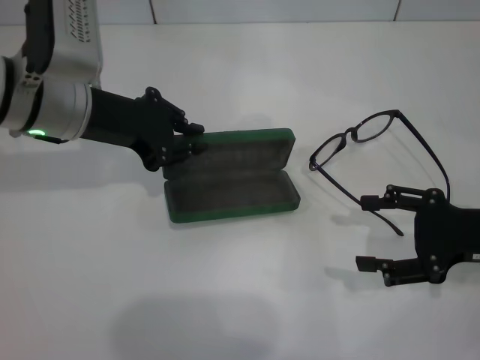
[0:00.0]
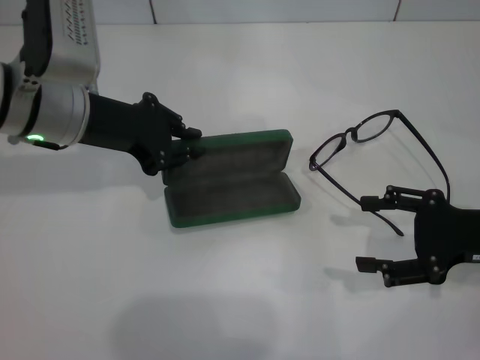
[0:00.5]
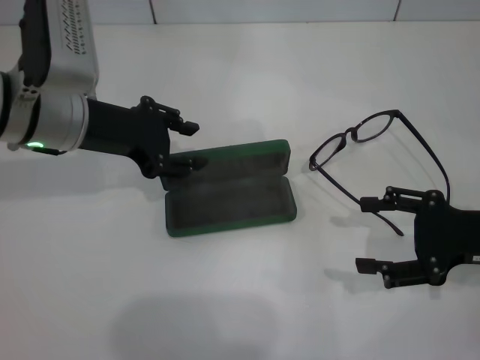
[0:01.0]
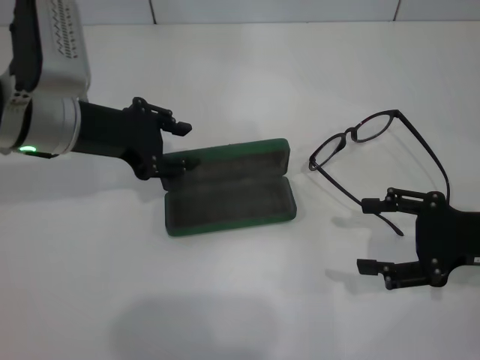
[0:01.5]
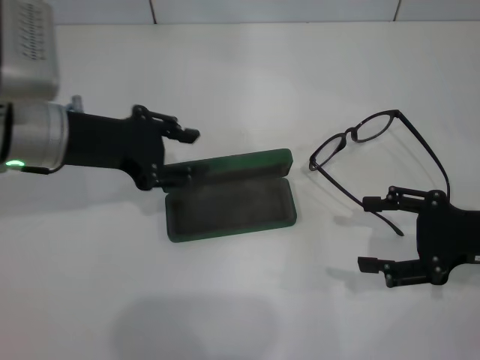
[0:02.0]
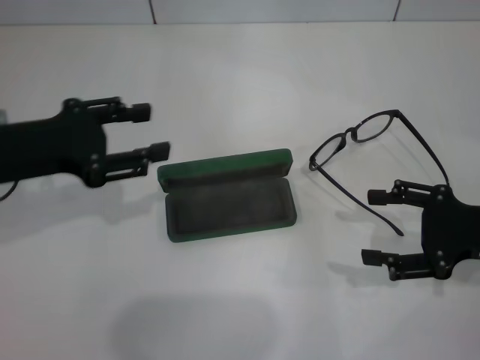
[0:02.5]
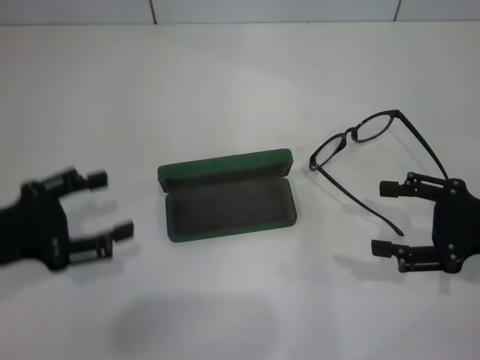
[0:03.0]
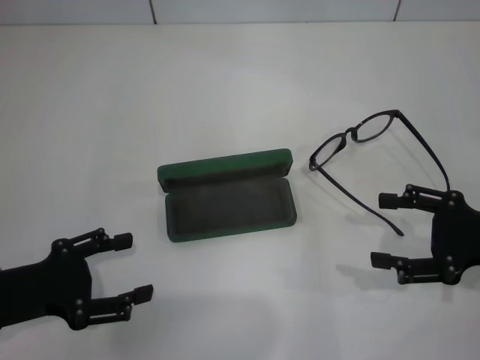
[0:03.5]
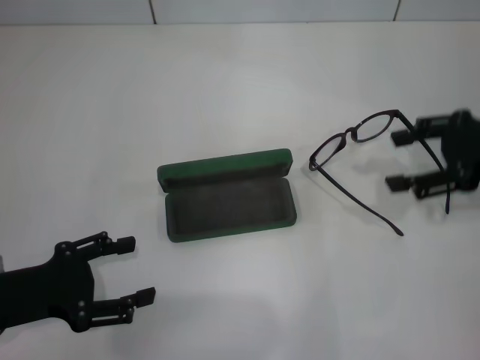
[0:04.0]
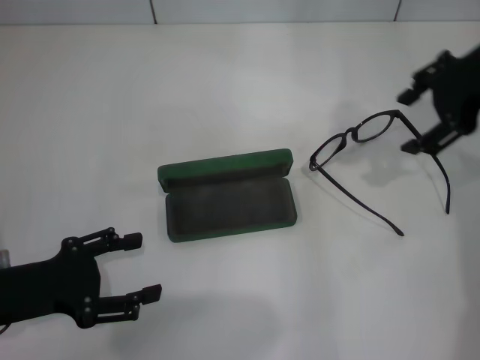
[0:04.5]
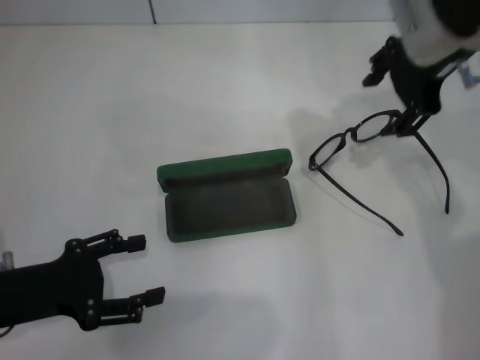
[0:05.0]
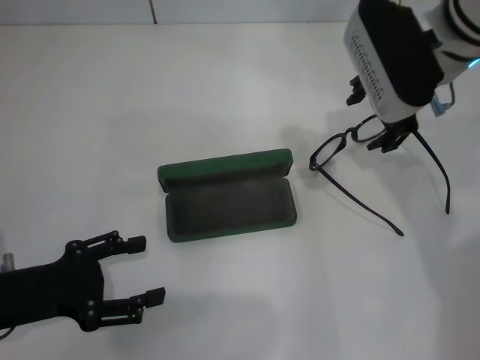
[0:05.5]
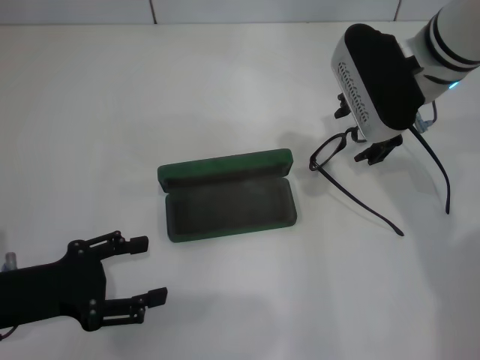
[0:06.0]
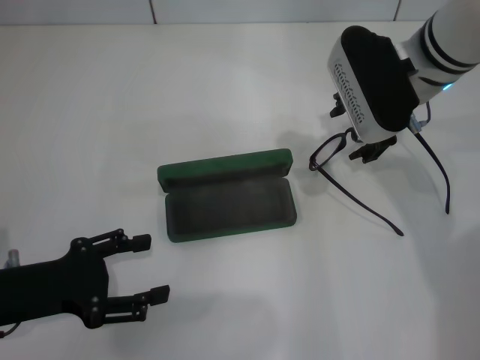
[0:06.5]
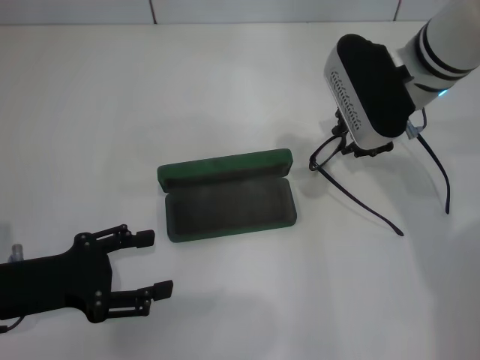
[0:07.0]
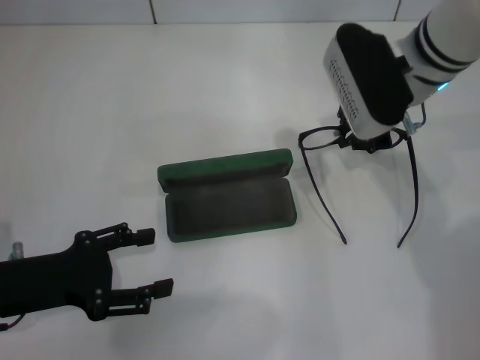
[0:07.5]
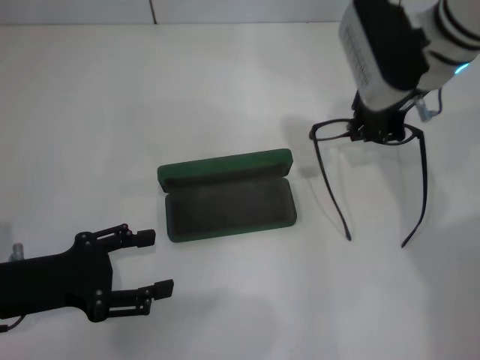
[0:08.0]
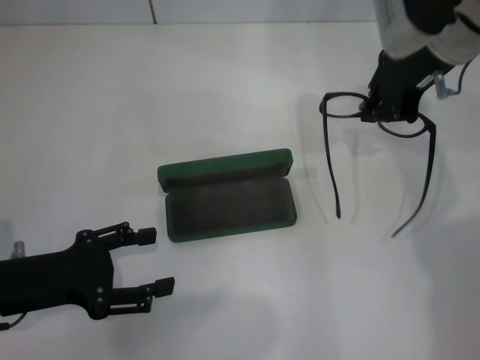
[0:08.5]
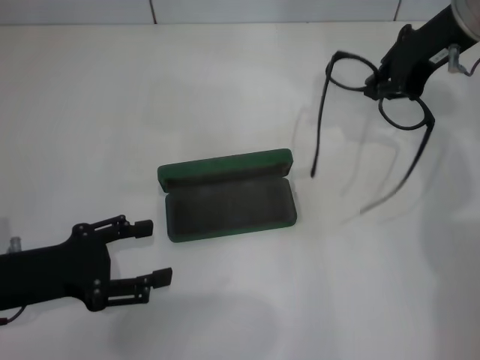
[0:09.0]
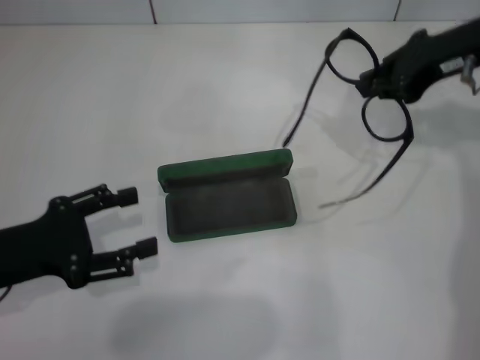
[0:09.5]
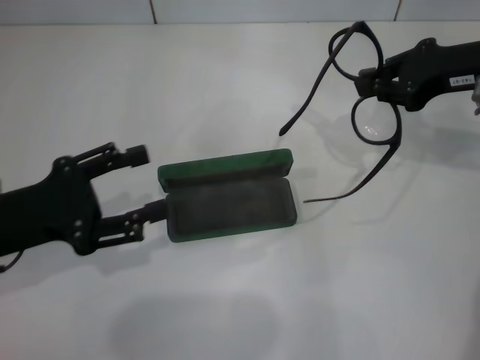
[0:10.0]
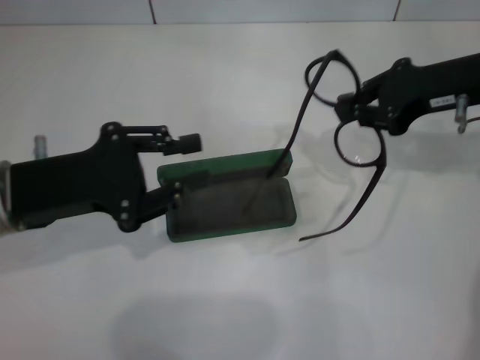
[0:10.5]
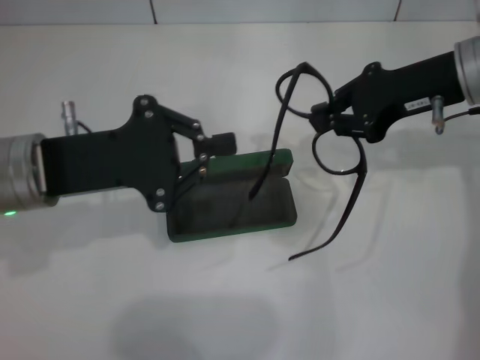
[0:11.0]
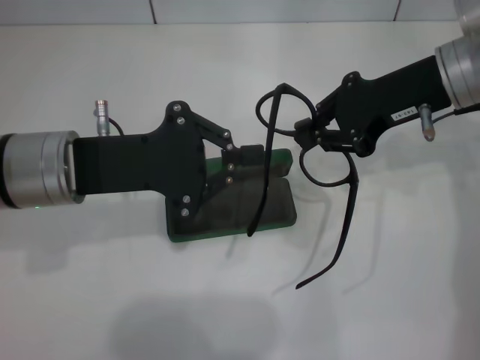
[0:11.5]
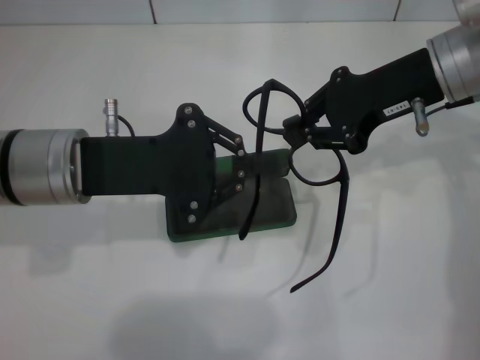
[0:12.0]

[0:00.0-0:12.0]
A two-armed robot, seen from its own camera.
Step, 0:01.0 to 0:07.0: Grab the eyeglass frame with your right hand.
0:00.0 to 0:02.0: The left gripper opens its fingers.
0:02.0 to 0:04.0: The left gripper shifts roughly 20 cm backward, downward and to the left, and opens; the right gripper goes approximately 10 cm upward and forward.
0:04.0 to 0:06.0: The right gripper is displaced to the left and forward by roughly 15 cm.
0:06.0 to 0:08.0: The right gripper closes up.
0:08.0 to 0:10.0: The right gripper is displaced to the right by some 10 cm.
0:10.0 to 0:12.0: The right gripper travels to the left by roughly 5 cm. The left gripper shifts approximately 10 cm to the right and forward, and closes its fingers.

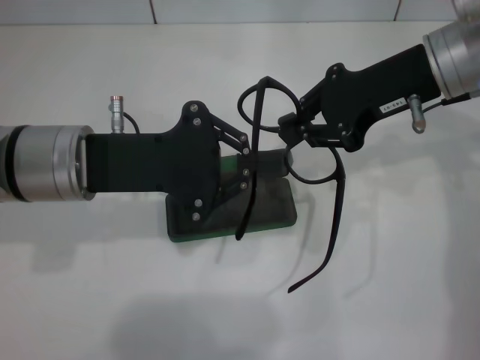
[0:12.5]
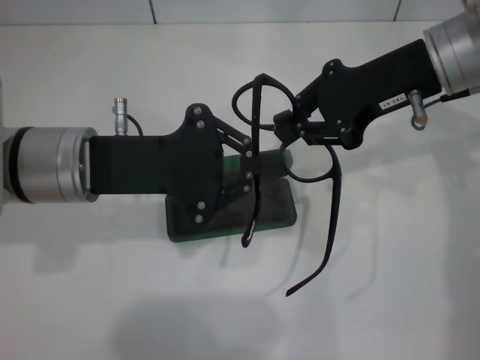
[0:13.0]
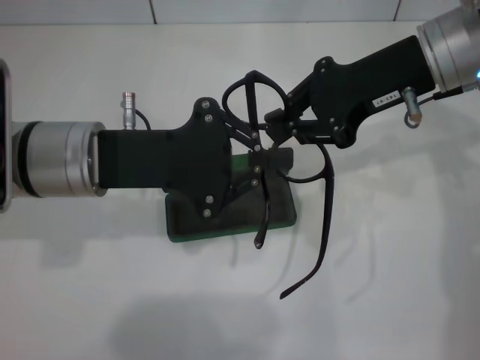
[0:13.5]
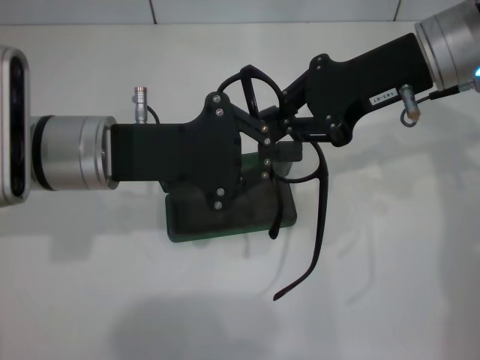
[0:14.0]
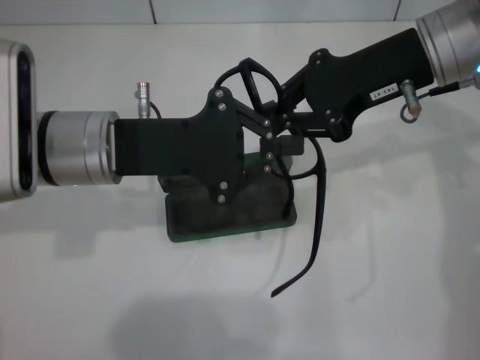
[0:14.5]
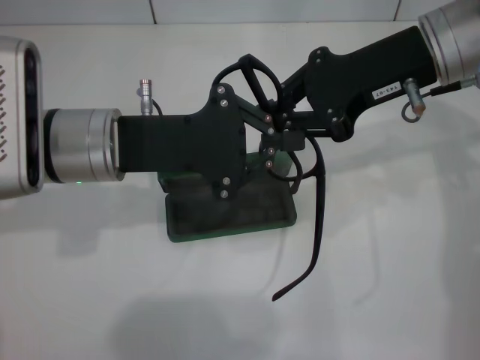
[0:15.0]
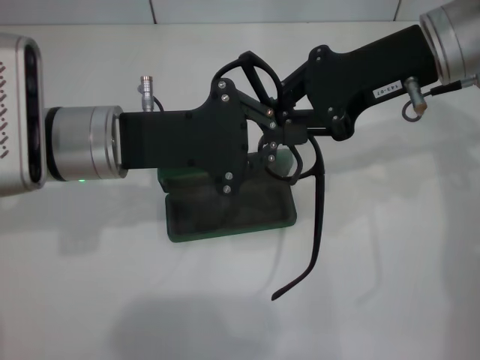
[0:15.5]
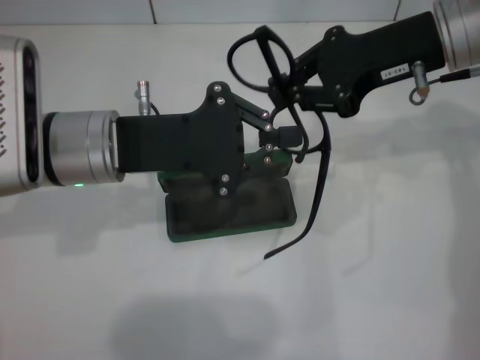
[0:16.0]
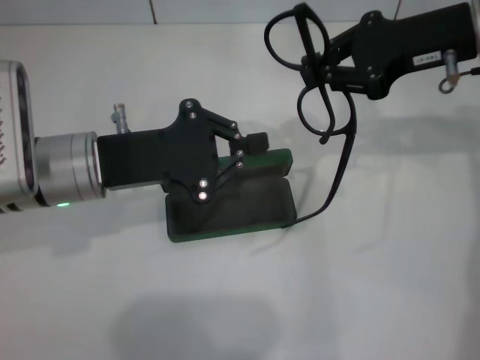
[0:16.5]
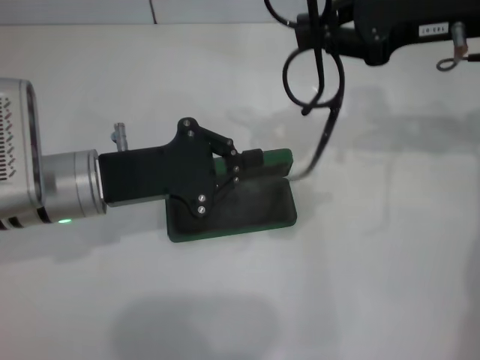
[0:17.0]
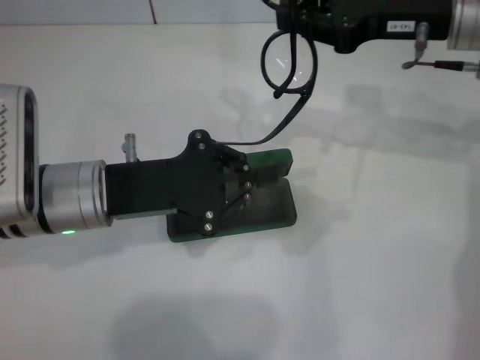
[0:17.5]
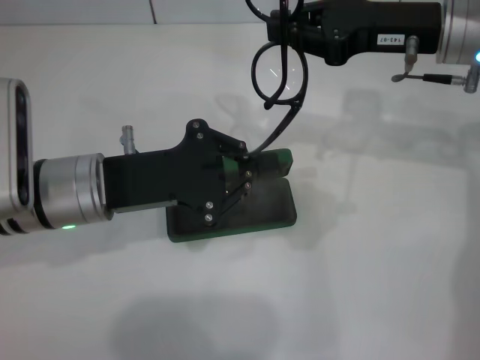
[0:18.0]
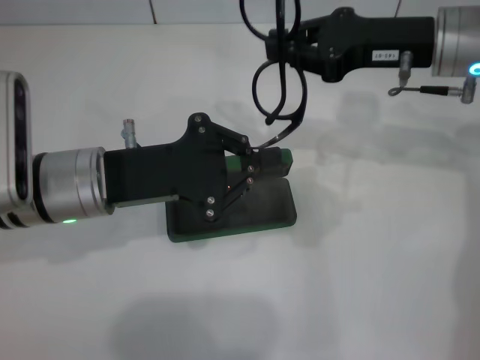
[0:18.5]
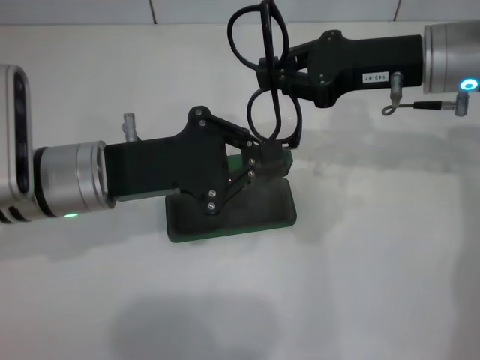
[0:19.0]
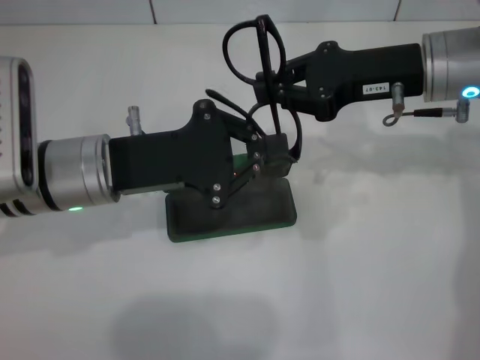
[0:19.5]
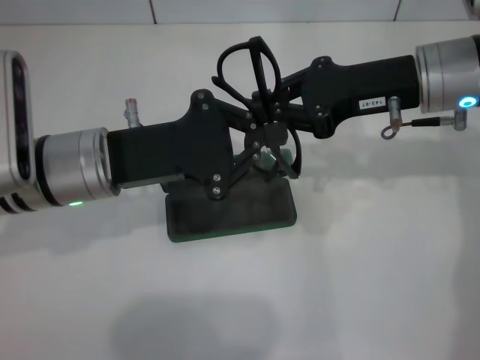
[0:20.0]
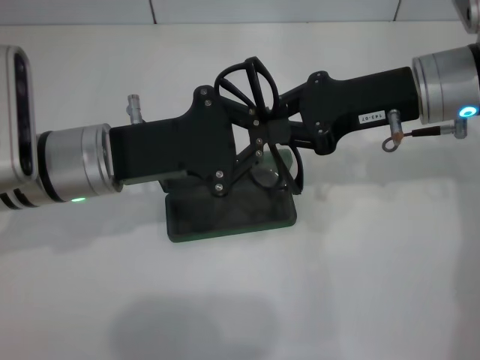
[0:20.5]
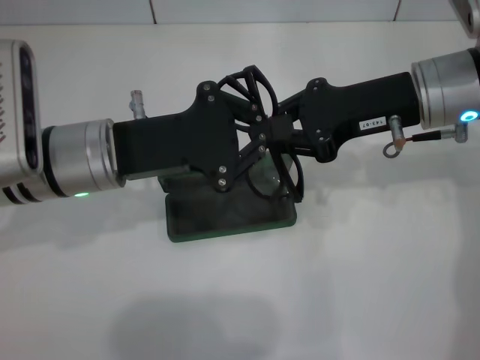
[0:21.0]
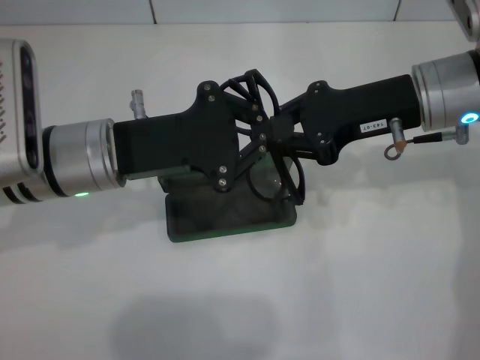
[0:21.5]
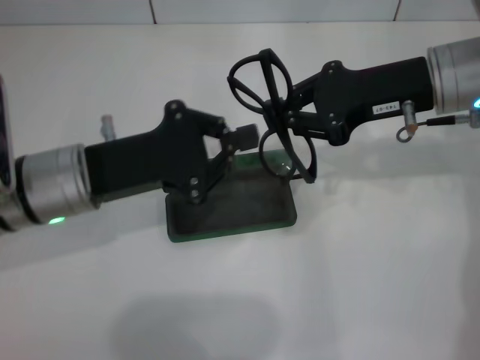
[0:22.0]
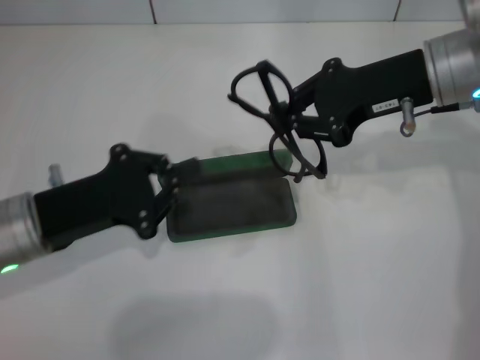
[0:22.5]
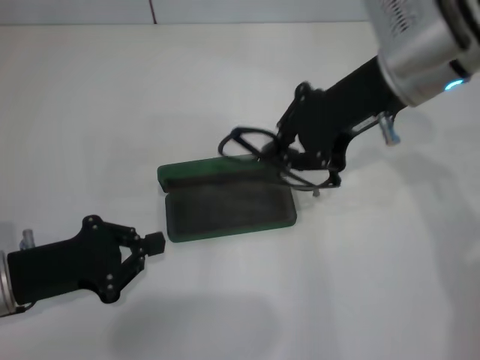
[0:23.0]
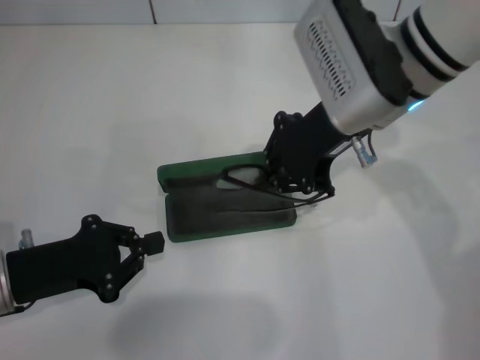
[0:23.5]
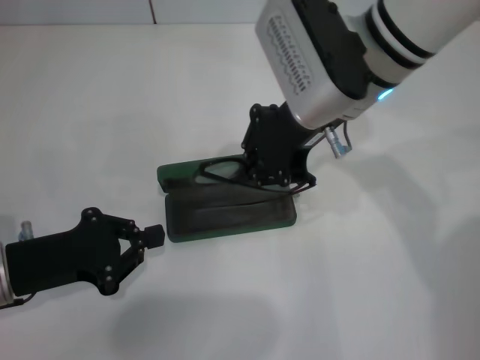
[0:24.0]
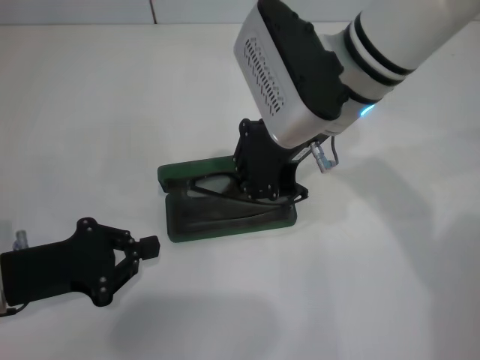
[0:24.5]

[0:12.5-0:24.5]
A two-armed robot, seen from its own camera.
Step, 0:12.5 to 0:21.0: Fold the frame with your left hand.
0:12.5 to 0:14.5: The grippers move only a little.
0:20.5 to 0:22.5: The left gripper moves to the left and backward, roughly 10 cm.
0:22.5 to 0:24.5: The right gripper shifts some 10 cm to the left; the left gripper moves roughly 5 cm.

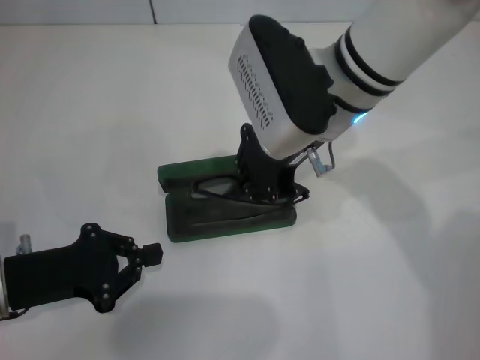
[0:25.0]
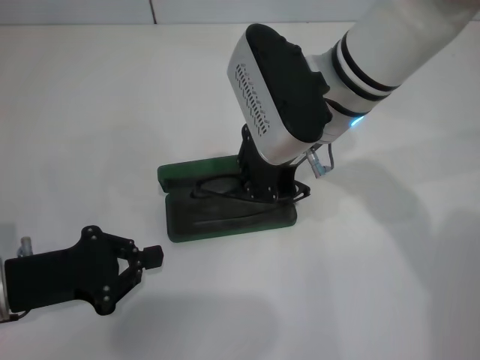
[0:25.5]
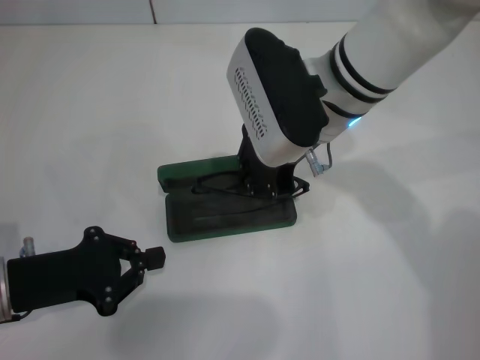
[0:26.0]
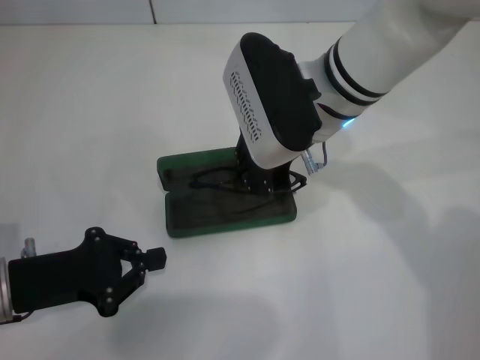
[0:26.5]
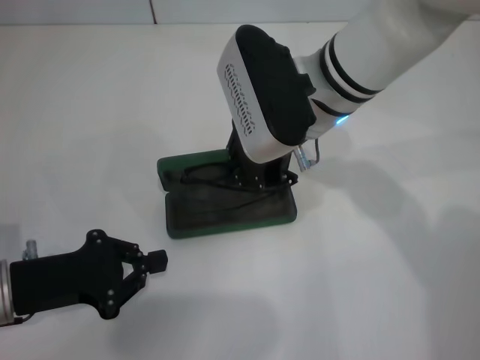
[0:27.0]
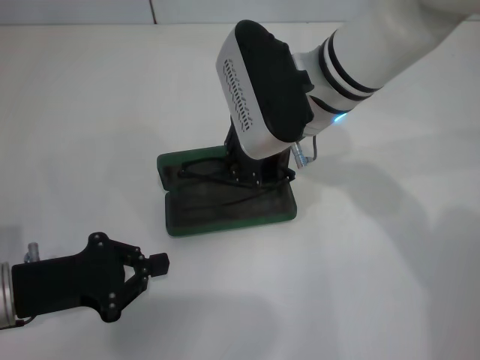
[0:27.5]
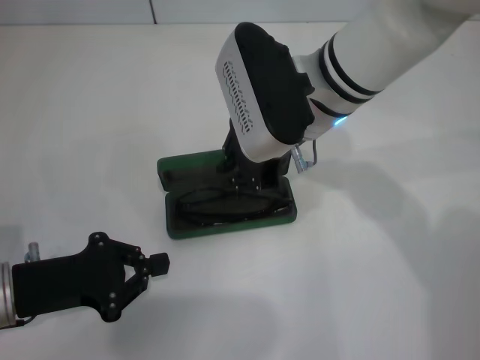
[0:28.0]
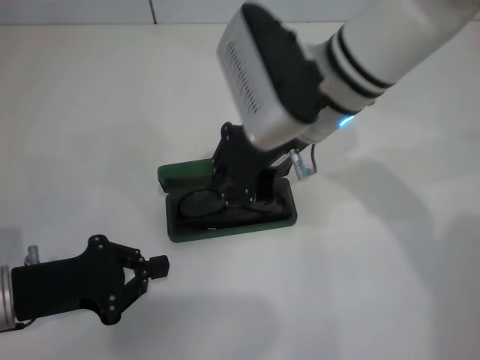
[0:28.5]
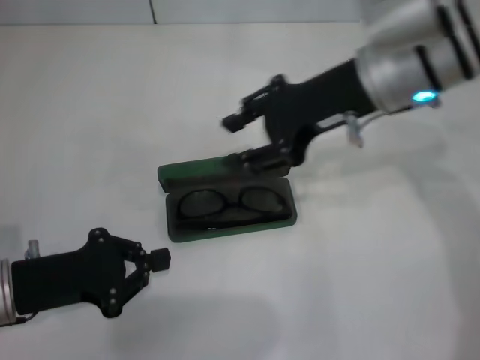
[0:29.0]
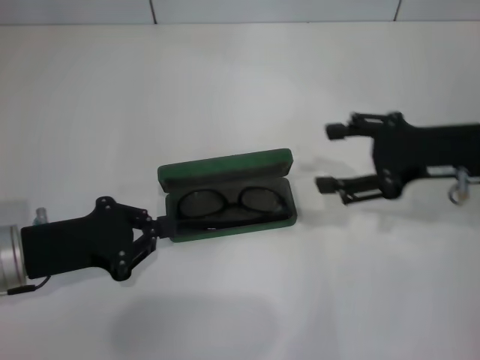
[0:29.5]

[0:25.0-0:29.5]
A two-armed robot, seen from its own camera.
Step, 0:25.0 to 0:28.0: Put the glasses into the case with your right hand.
0:25.0 to 0:27.0: There are only small adjustments of the grippers.
0:27.0 to 0:29.5: The right gripper shifts roughly 20 cm to the right, and opens.
